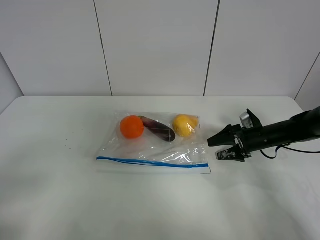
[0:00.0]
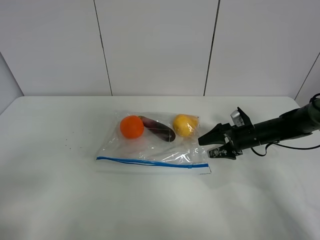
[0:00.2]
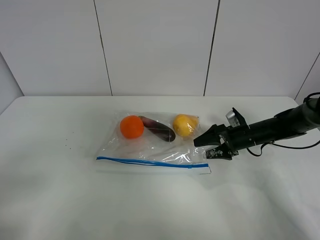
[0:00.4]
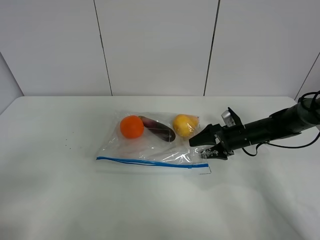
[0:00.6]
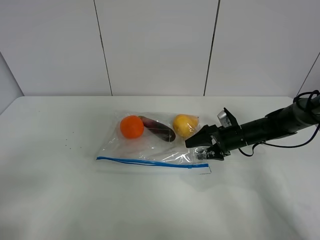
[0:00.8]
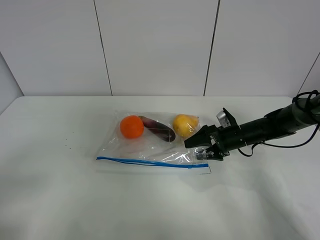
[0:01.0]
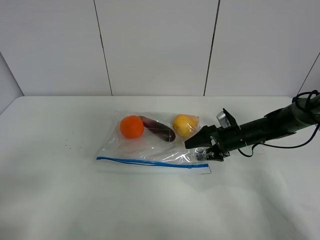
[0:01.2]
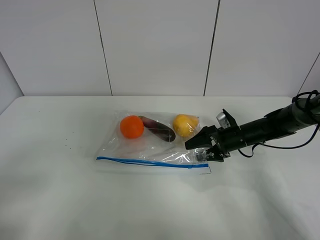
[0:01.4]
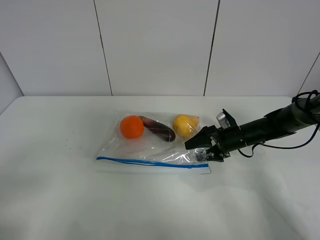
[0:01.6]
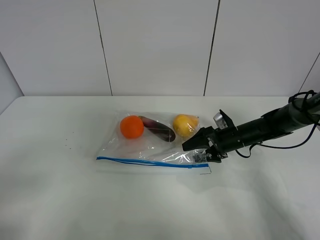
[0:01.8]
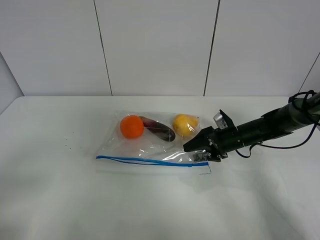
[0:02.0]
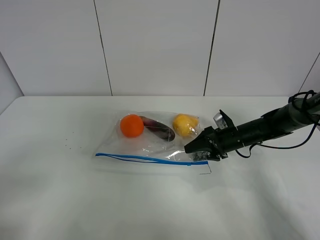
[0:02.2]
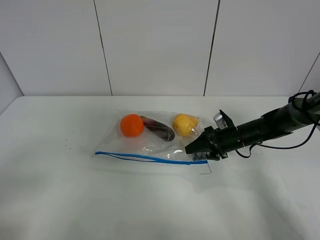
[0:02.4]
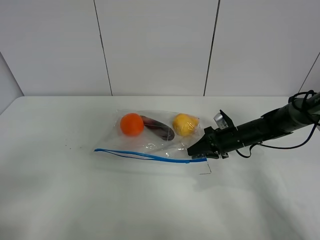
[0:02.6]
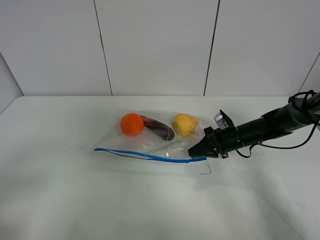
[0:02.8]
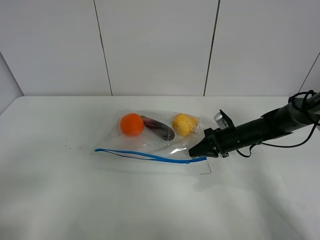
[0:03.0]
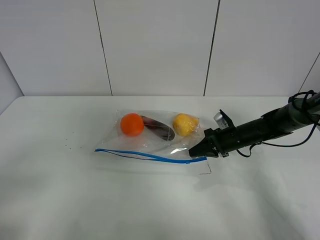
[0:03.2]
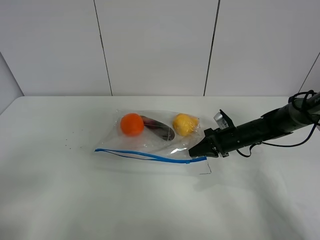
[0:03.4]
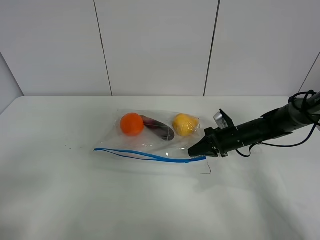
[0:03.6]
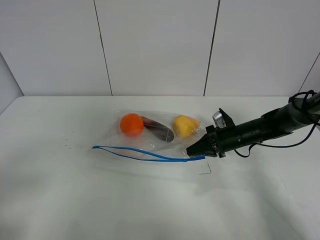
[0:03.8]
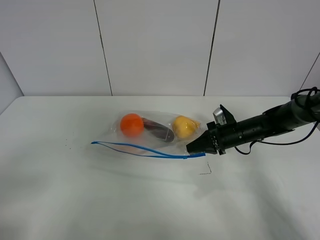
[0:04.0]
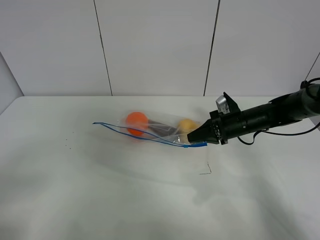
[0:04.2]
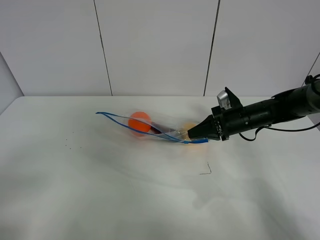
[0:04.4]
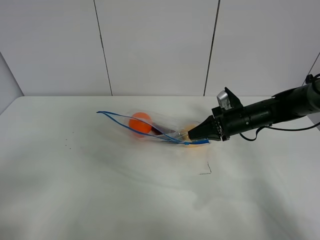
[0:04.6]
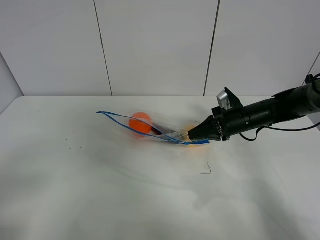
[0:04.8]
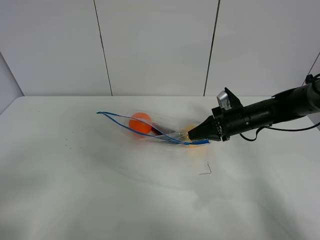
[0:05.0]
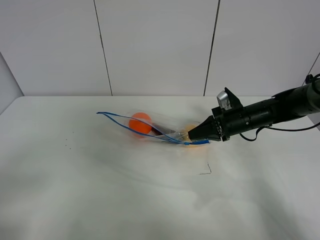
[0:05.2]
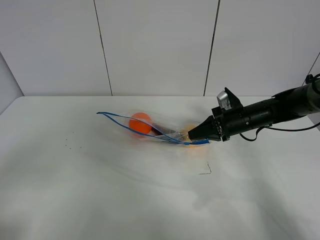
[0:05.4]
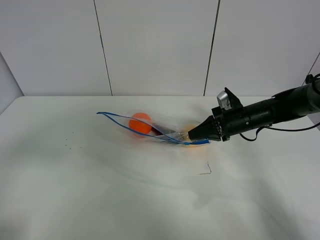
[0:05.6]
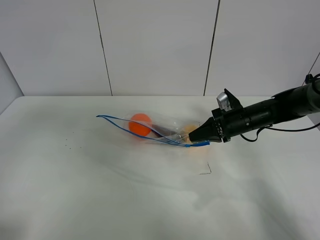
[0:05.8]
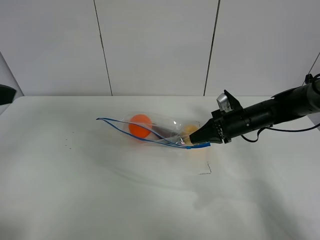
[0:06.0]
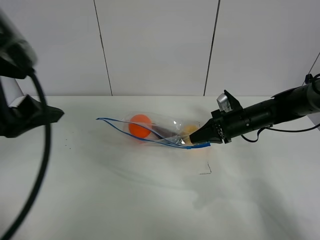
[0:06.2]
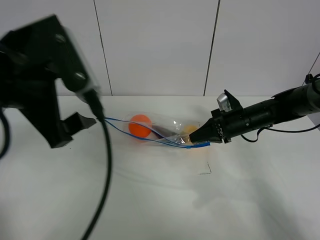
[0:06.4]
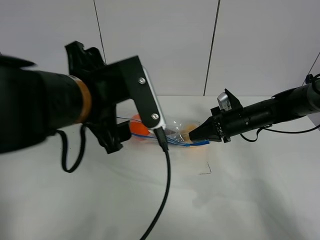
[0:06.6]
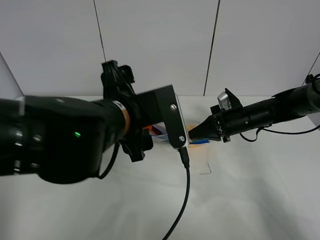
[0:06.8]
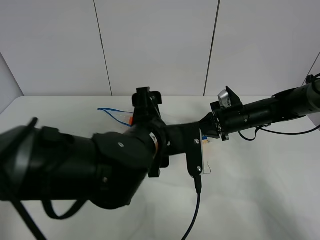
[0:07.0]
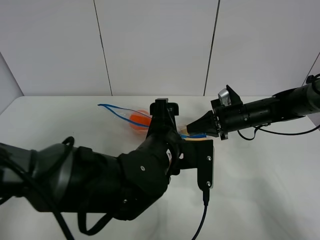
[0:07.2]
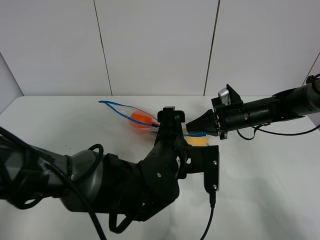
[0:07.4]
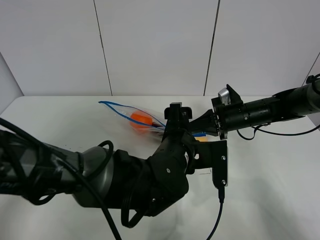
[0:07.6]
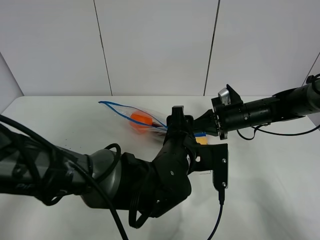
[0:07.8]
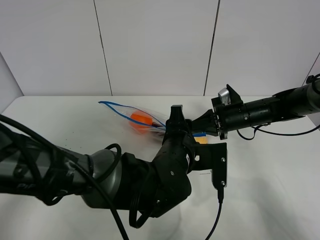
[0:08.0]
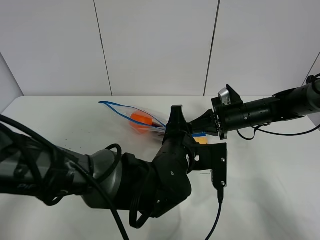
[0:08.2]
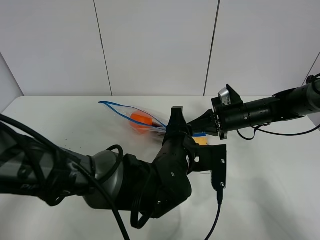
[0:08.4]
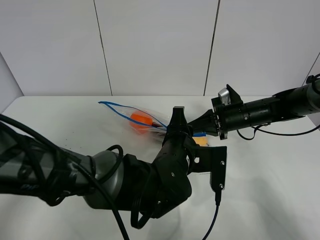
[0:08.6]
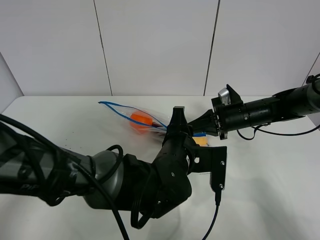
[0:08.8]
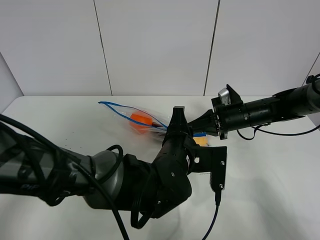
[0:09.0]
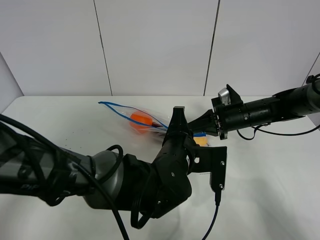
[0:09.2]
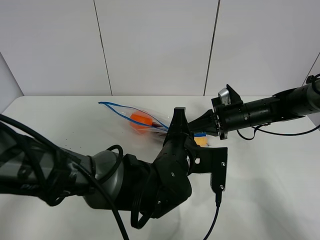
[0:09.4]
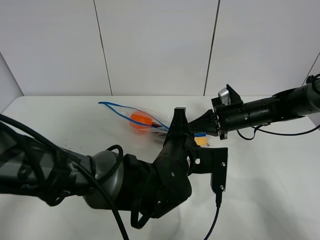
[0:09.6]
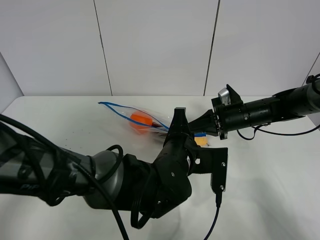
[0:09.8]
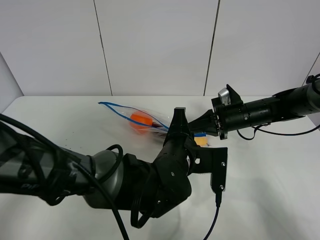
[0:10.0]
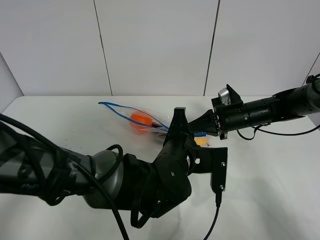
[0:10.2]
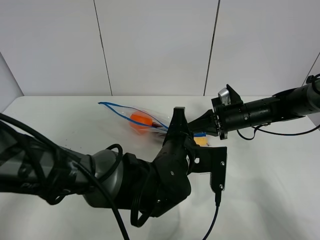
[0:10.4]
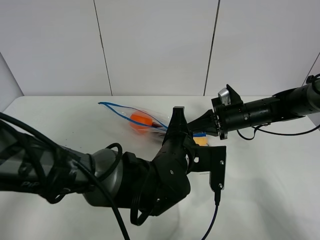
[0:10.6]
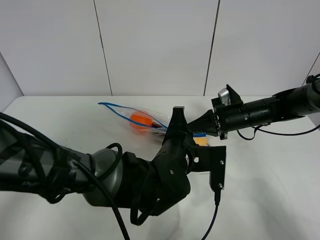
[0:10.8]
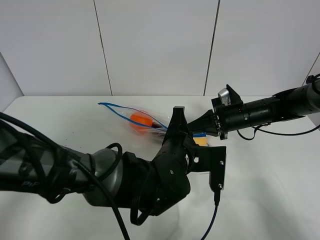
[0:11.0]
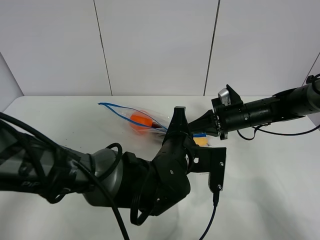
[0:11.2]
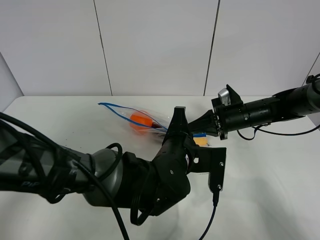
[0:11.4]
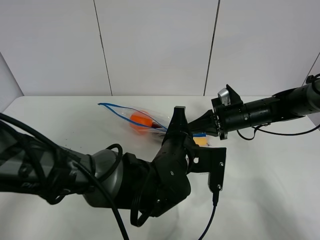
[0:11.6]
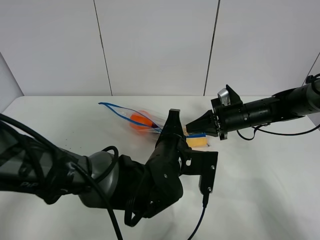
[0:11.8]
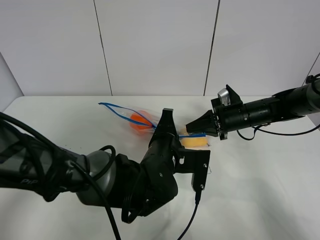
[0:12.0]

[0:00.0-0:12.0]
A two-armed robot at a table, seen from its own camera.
Step, 0:00.0 to 0:02.8: Grasp the fruit bag with right gripper.
Step, 0:03.0 to 0:04.6: Lift the fruit bag with your right gripper.
0:00.0 to 0:01.6: The right gripper is displaced to the left by some 5 cm.
0:01.6 to 0:03.0: The right gripper closes.
0:03.0 to 0:04.4: The right gripper heads upward, covering roughly 5 cm.
0:04.4 to 0:06.0: The left gripper travels forward and upward by some 20 cm.
0:06.0 to 0:07.6: The left gripper heads to the right and downward, covering roughly 40 cm.
0:07.6 to 0:09.0: The left gripper closes.
0:09.0 to 0:10.4: The two grippers keep their place.
0:10.4 to 0:12.0: The grippers make only small movements.

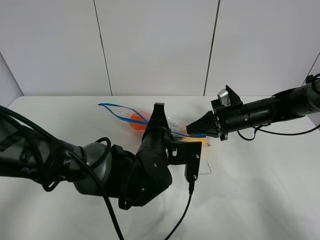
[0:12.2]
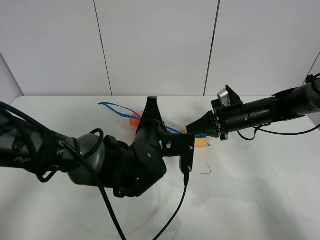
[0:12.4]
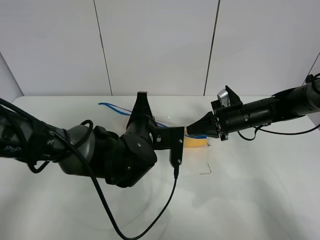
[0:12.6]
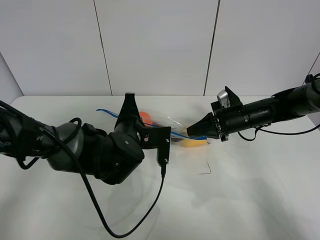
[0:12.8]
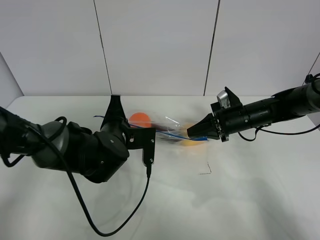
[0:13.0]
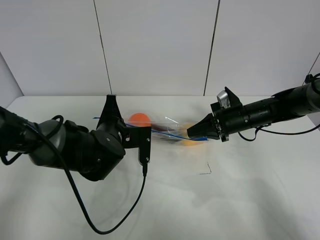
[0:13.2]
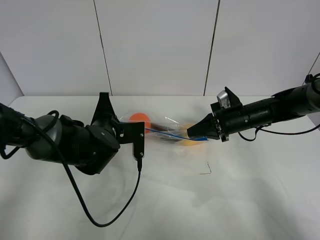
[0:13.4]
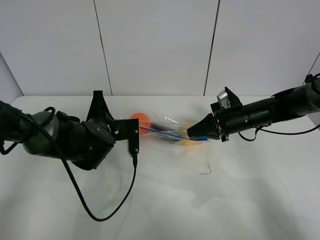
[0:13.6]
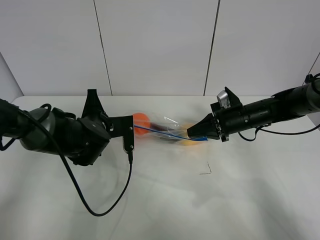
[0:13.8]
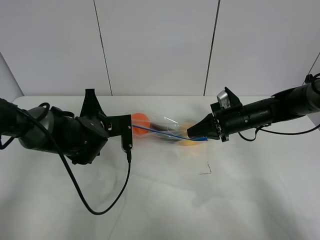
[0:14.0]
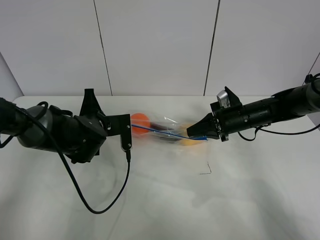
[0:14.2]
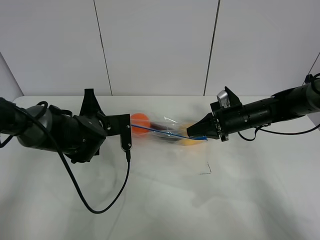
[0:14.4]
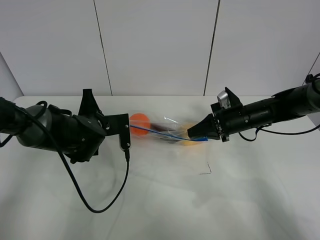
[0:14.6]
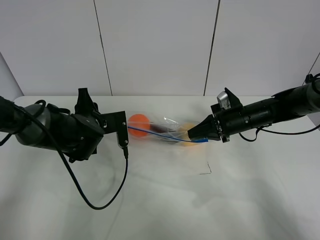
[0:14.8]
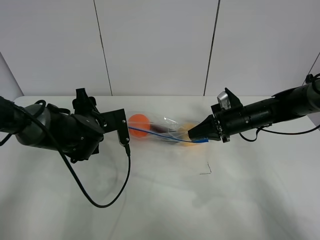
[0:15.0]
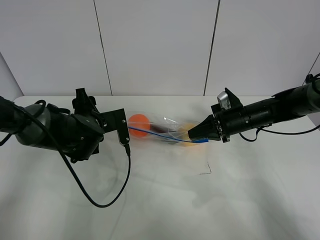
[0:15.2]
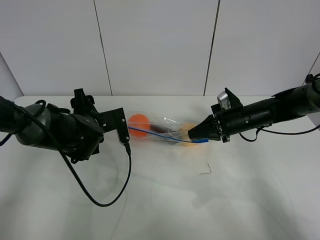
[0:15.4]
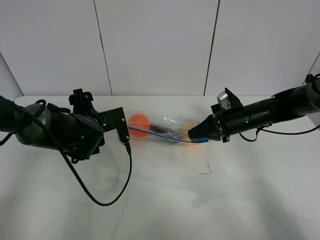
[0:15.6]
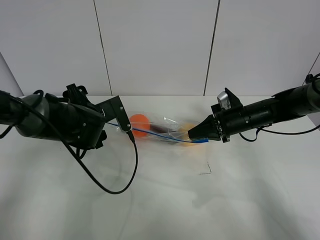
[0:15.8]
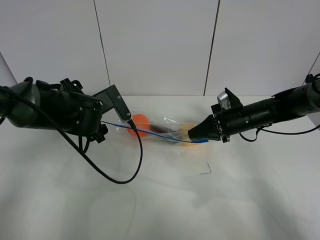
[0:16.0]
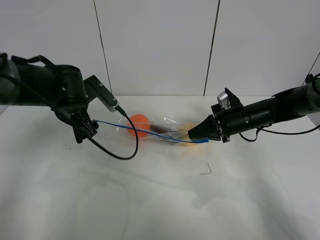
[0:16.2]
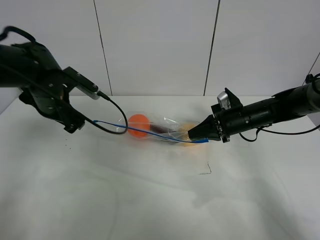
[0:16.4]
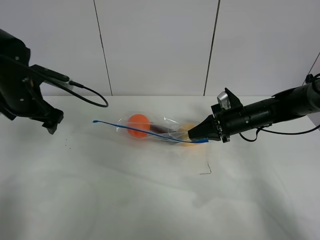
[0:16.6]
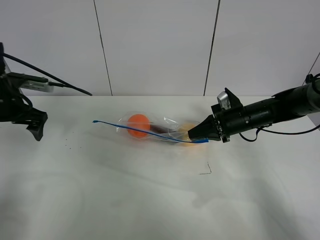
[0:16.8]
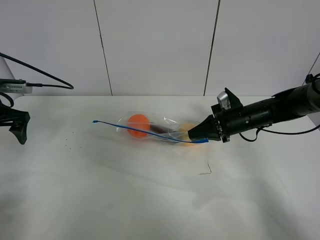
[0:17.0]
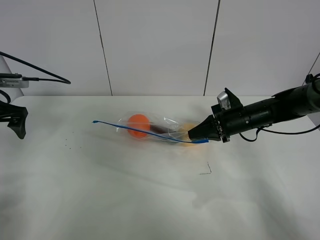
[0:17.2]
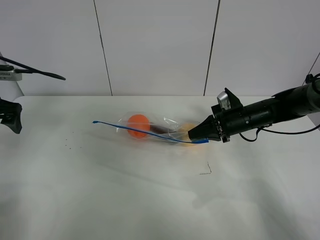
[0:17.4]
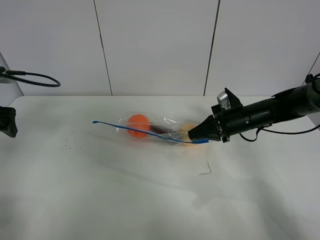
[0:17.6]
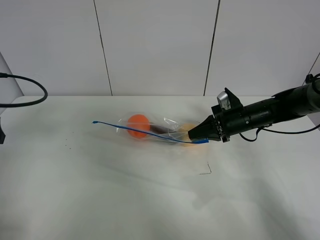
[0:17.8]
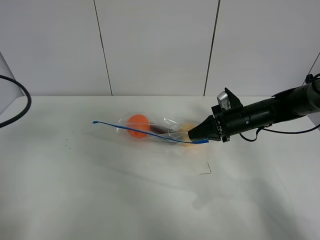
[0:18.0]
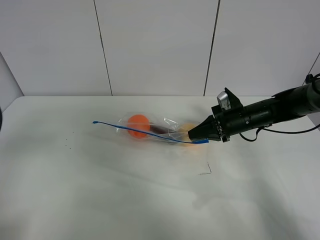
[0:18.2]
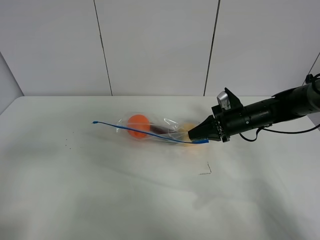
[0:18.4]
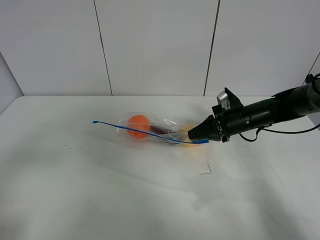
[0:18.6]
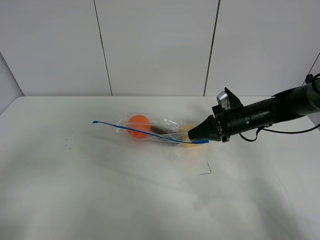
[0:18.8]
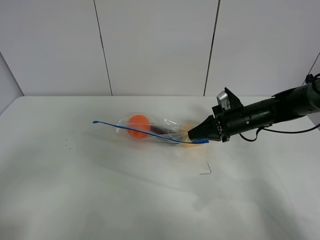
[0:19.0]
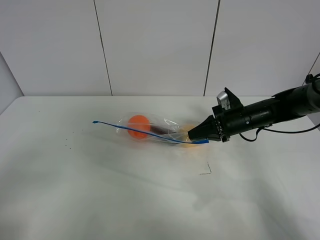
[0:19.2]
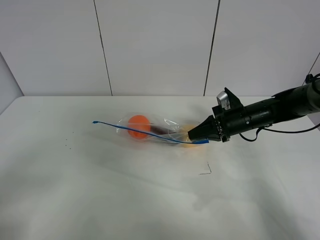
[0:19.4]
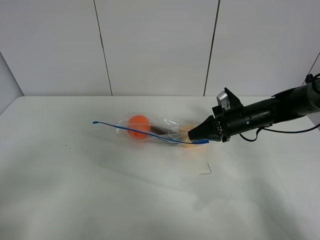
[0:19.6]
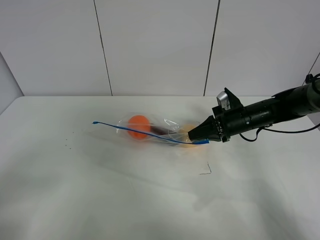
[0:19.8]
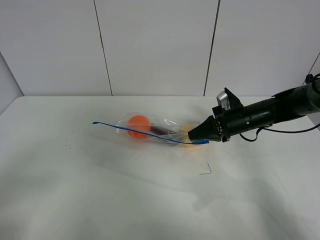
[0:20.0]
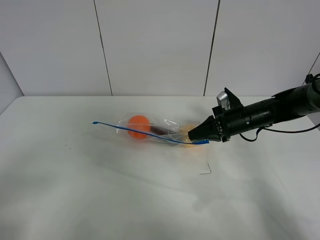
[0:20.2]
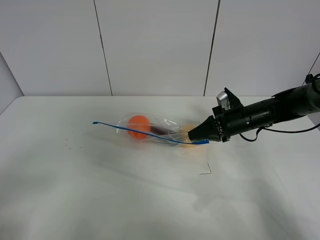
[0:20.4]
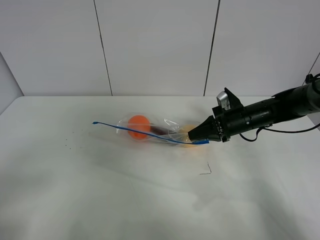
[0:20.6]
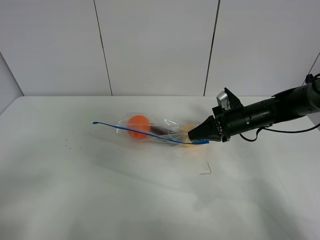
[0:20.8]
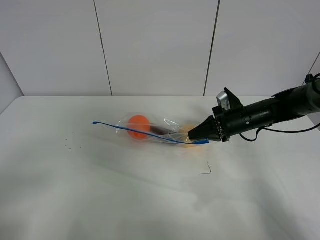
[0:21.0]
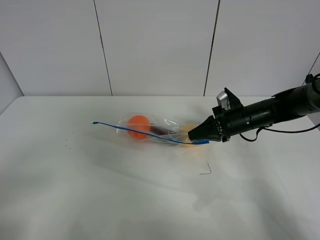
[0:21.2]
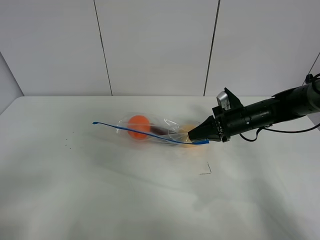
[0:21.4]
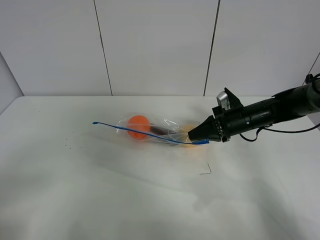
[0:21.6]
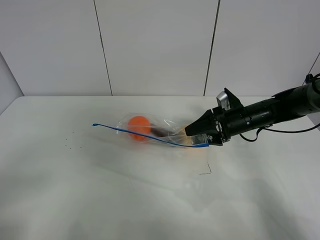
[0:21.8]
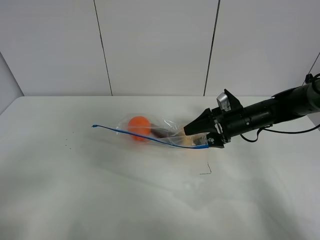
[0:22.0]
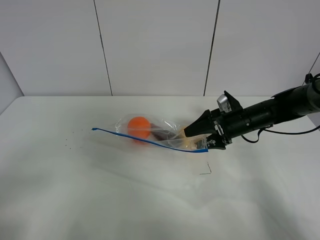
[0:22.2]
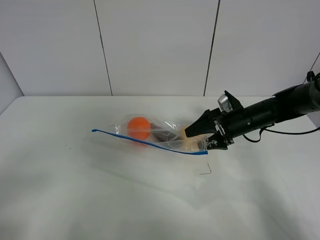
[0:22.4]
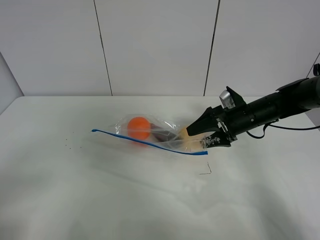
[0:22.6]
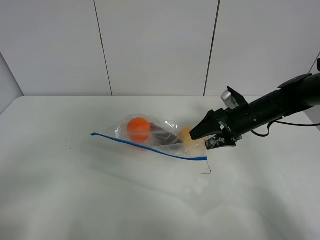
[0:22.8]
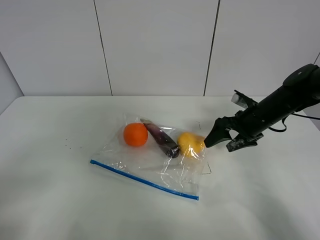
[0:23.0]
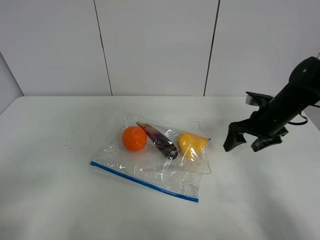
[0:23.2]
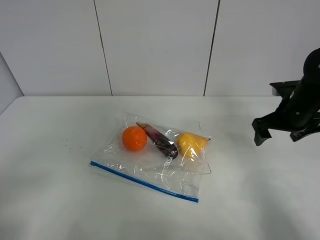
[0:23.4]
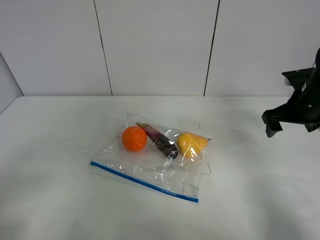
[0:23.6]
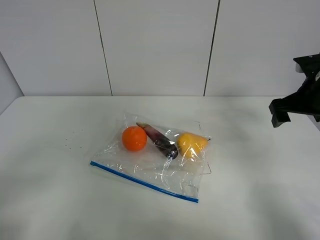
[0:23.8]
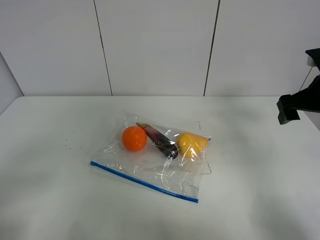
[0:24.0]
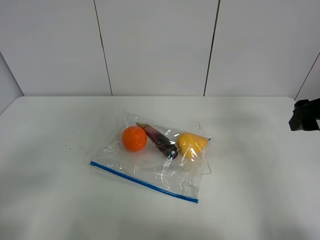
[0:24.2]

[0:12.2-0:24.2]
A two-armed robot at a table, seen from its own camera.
Step, 0:12.2 to 0:14.8: Pull the fruit bag with left gripper.
0:12.2 to 0:13.8: The left gripper goes roughly 15 cm to the left and forward.
0:13.8 to 0:15.2: The left gripper opens up.
0:15.2 to 0:16.6: The left gripper shifts some 15 cm to the left and upward.
0:16.6 to 0:18.2: The left gripper goes approximately 25 cm backward.
0:18.2 to 0:19.8: The left gripper moves backward, roughly 10 cm.
0:21.2 to 0:22.6: The right gripper opens.
0:22.6 to 0:24.2: The right gripper travels upward, backward and to the right by about 20 cm.
